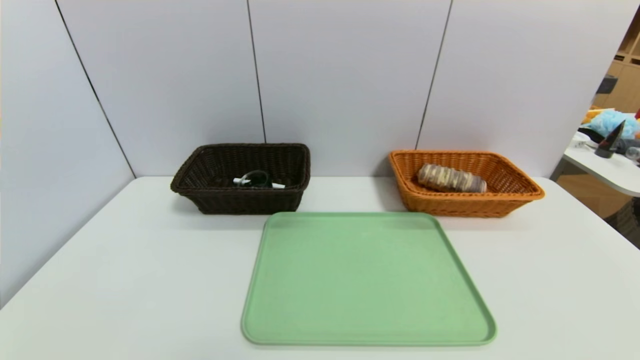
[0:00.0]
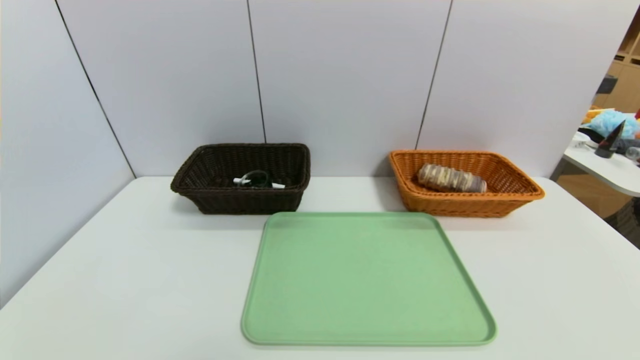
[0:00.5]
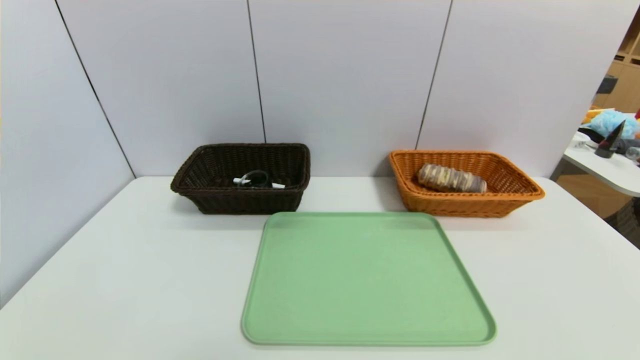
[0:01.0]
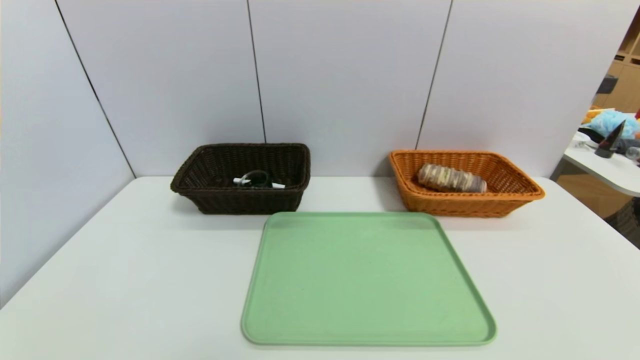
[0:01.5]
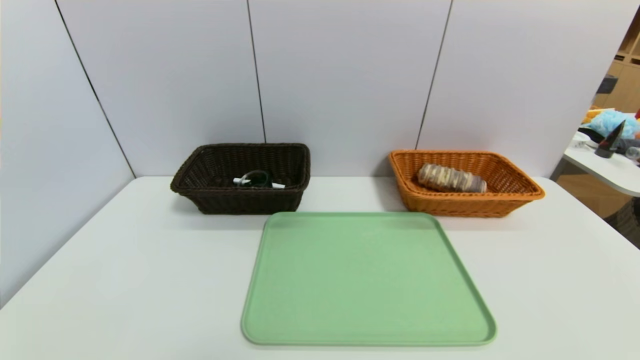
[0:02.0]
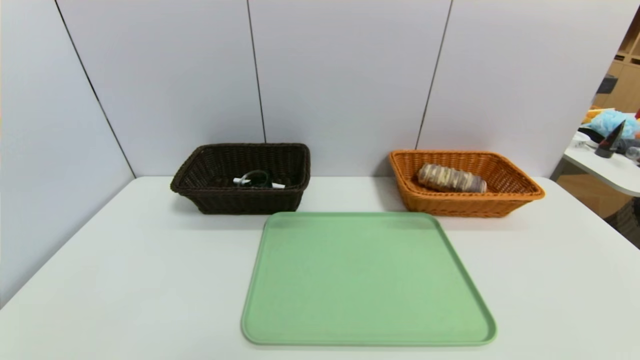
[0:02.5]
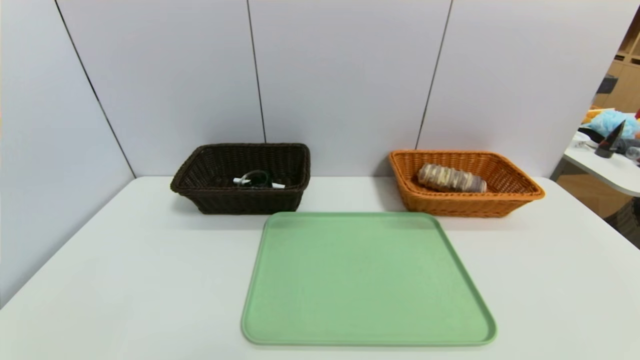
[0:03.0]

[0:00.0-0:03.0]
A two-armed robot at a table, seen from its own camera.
Task of the whole recording: place the food in the right basket with the right gripper, and place the non food items in the left basket with the left gripper.
0:01.5 to 0:03.0: The two grippers keep their place.

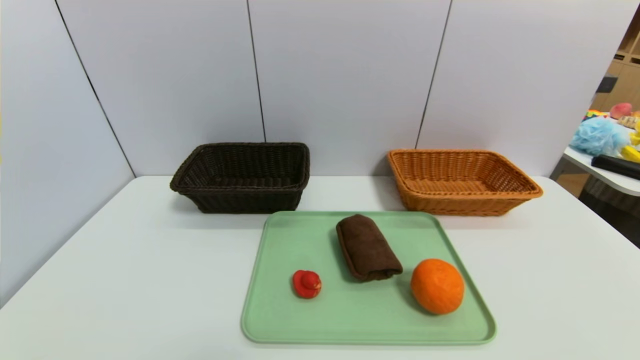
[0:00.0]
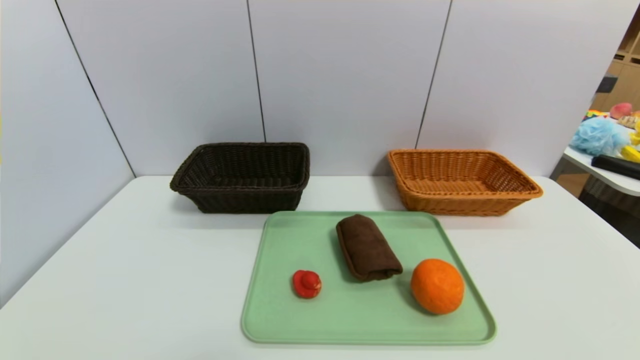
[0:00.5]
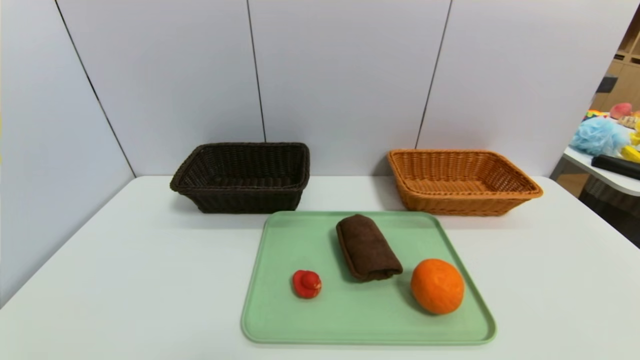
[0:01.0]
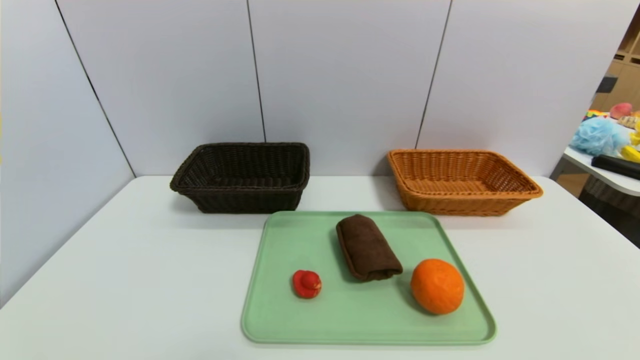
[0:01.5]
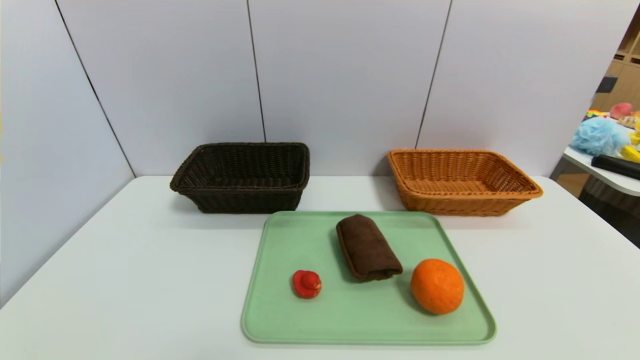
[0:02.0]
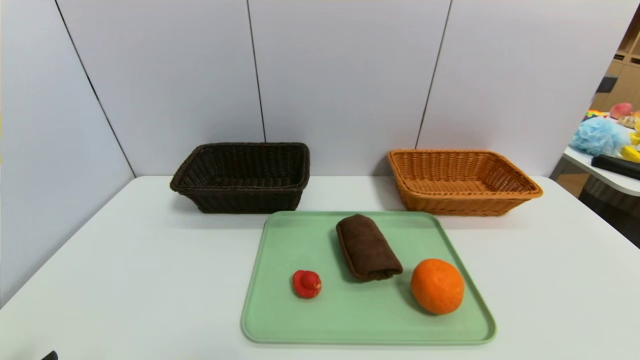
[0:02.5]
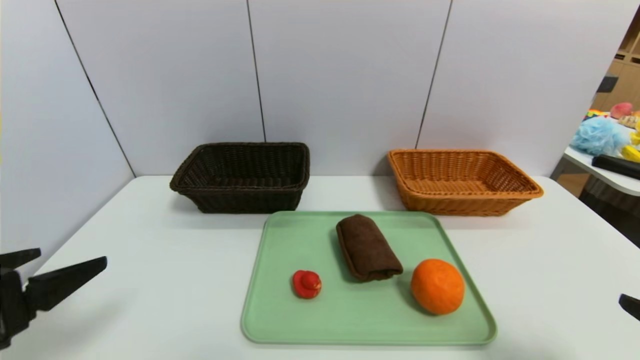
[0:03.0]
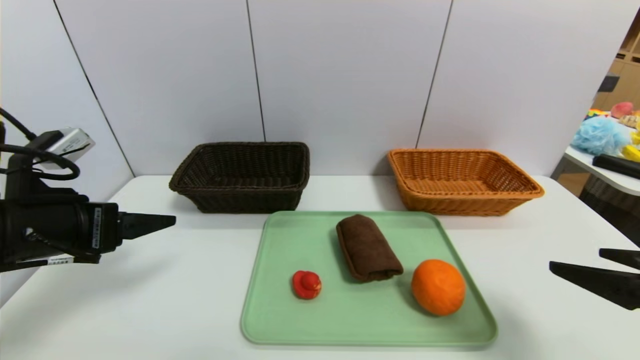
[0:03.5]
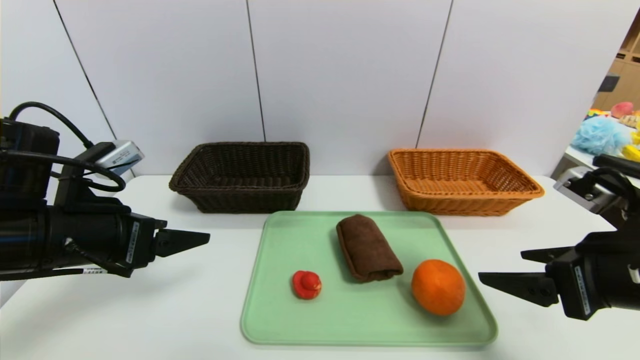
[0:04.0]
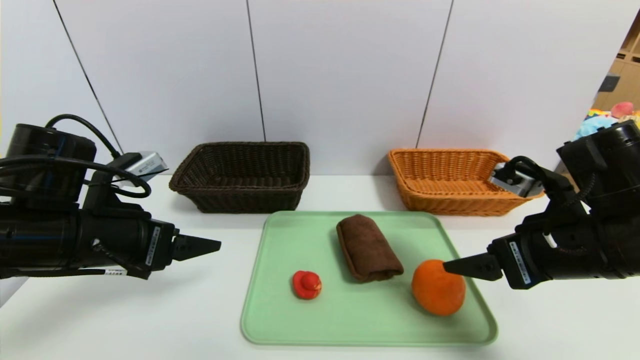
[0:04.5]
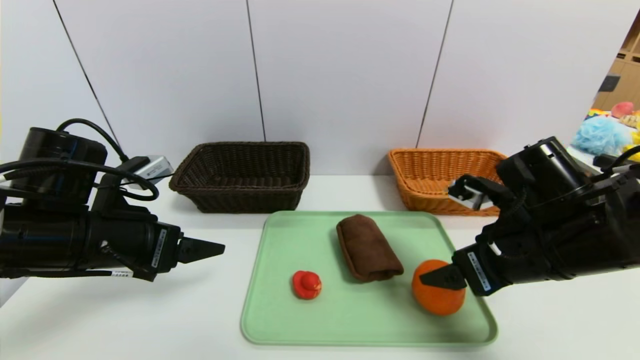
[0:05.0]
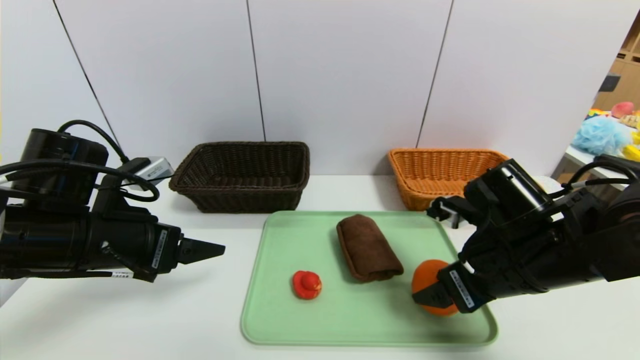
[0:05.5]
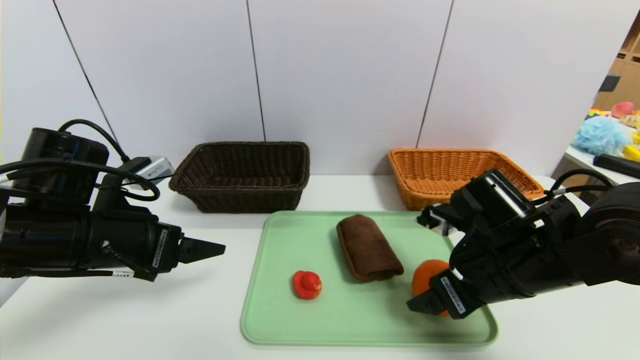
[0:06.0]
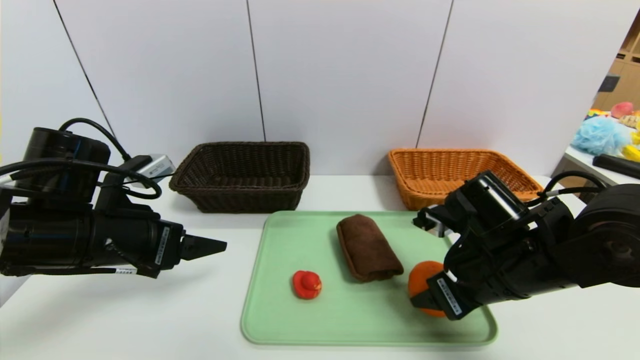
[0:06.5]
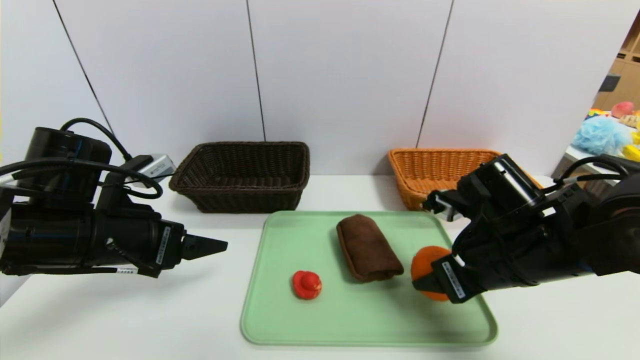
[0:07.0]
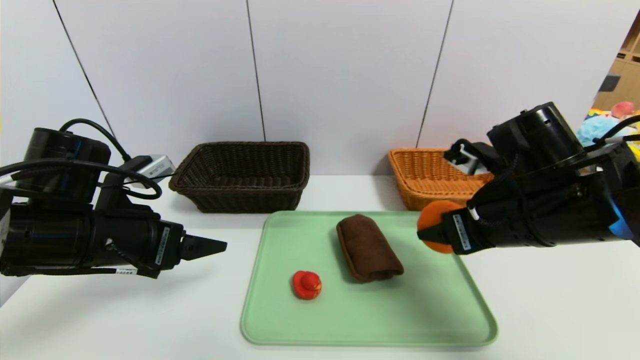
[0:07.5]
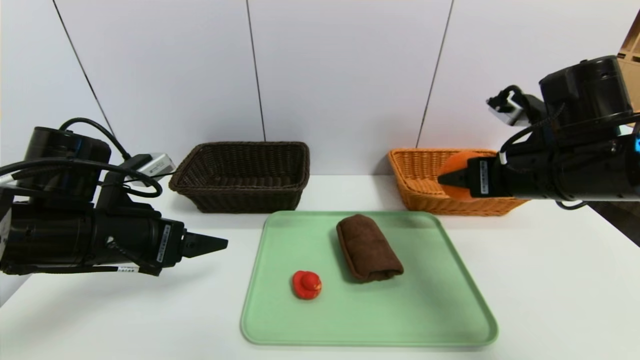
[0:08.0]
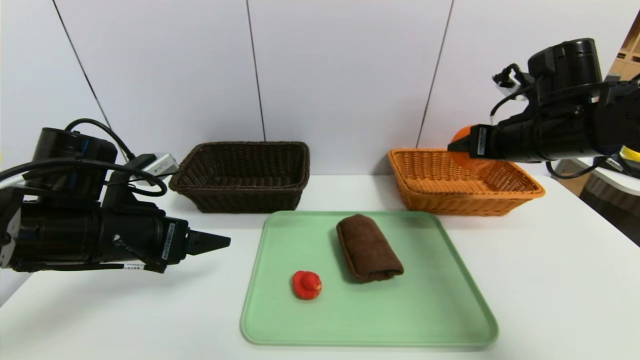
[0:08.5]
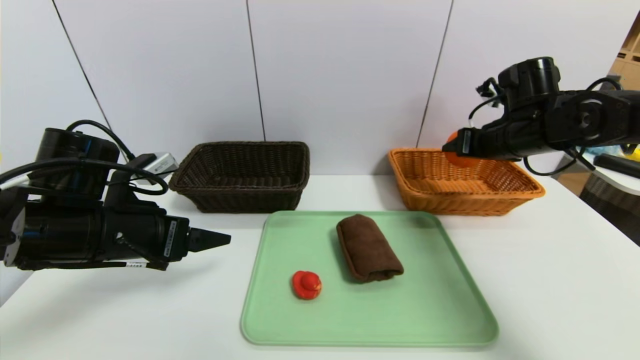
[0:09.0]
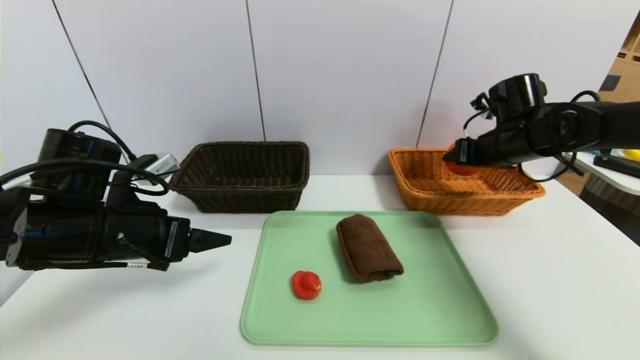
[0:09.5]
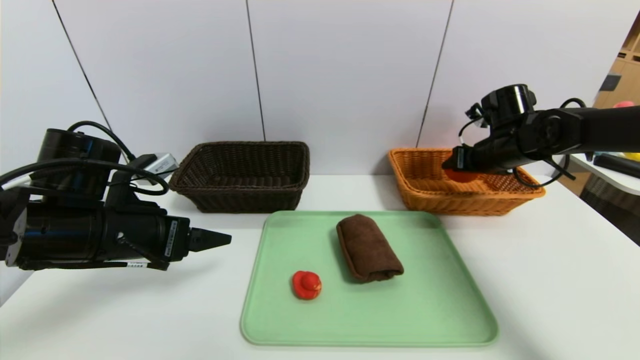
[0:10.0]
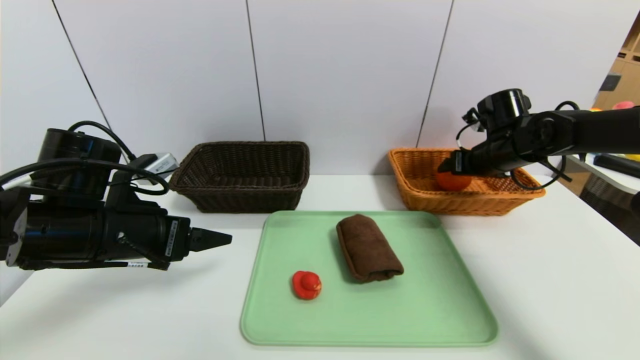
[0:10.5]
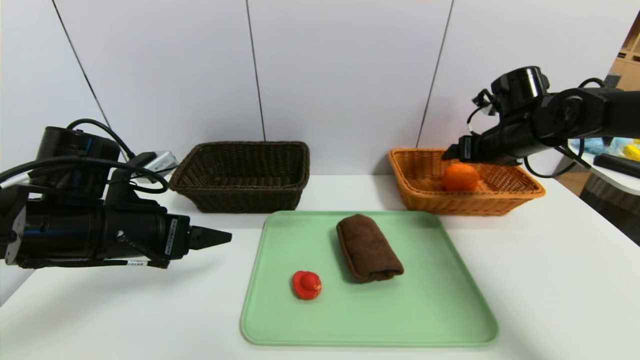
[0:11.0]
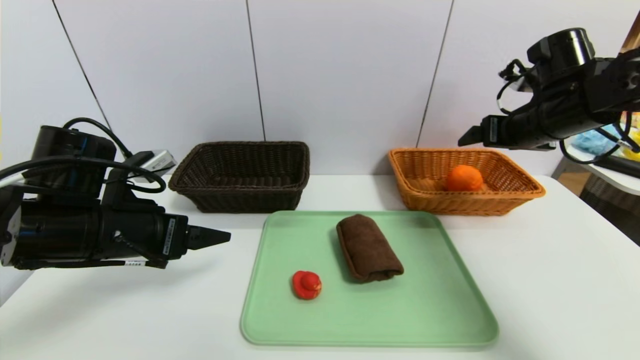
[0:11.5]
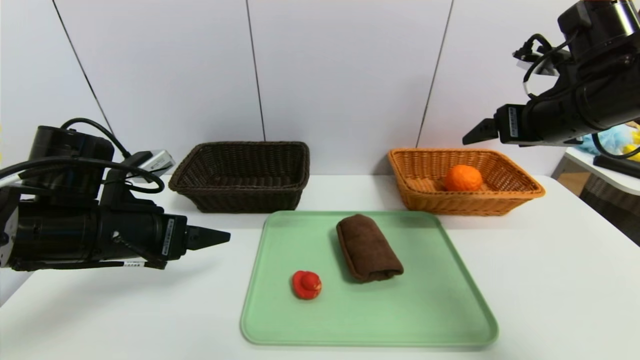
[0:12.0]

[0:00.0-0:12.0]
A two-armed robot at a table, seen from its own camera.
Task of the whole recording: place the food in the right basket with the right gripper, and place the non food items in the left basket with the left gripper.
Step, 0:00.0 to 0:11.0: Grasp the orange and put it in the right basket.
0:02.0 to 0:04.0: Both grippers move forward and upward, approximately 25 cm.
0:04.0 to 0:06.0: The right gripper shifts roughly 10 cm to the left, forward and downward.
0:06.0 to 0:08.0: The right gripper heads upward, covering some 10 cm, and closes.
0:08.0 to 0:10.0: The right gripper moves forward, approximately 15 cm.
0:10.0 to 0:12.0: The right gripper heads backward and upward, covering about 15 cm, and opens up.

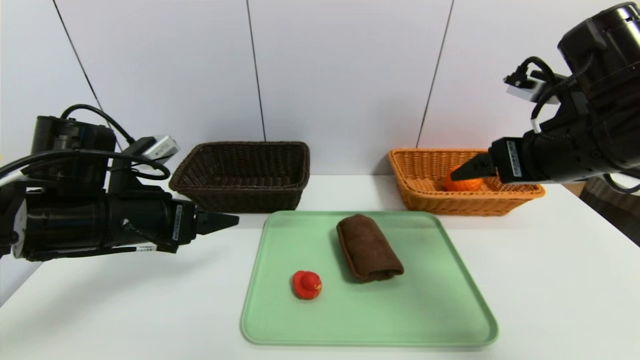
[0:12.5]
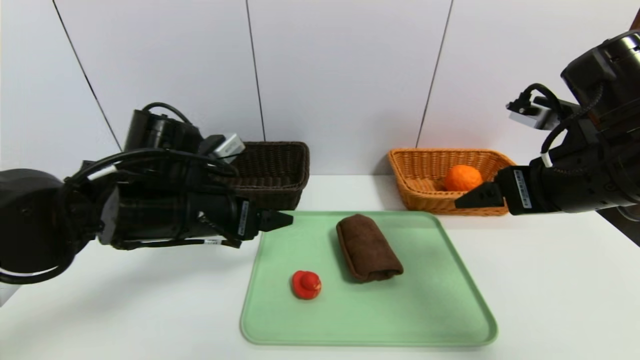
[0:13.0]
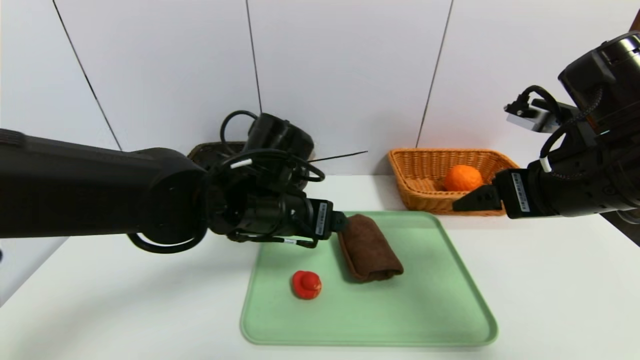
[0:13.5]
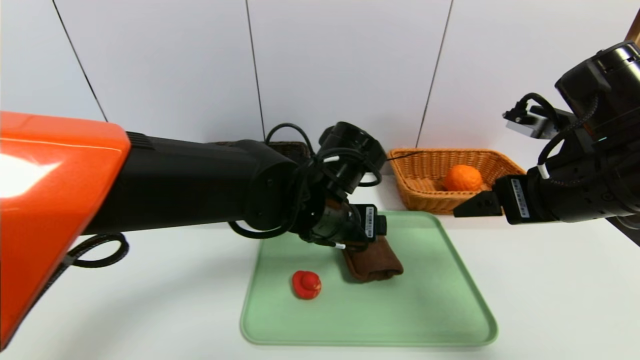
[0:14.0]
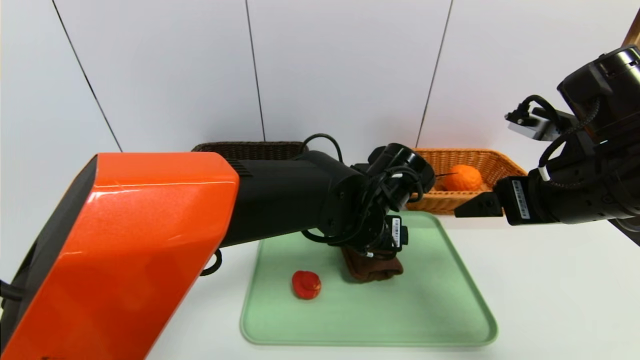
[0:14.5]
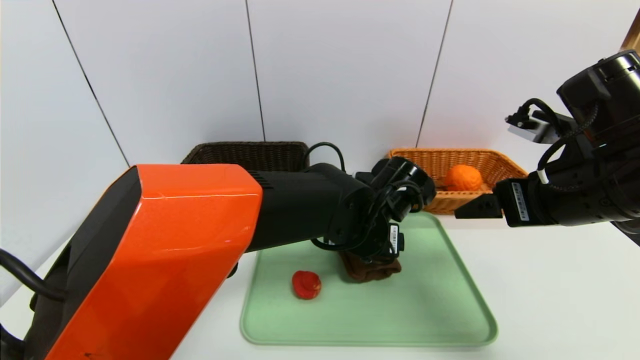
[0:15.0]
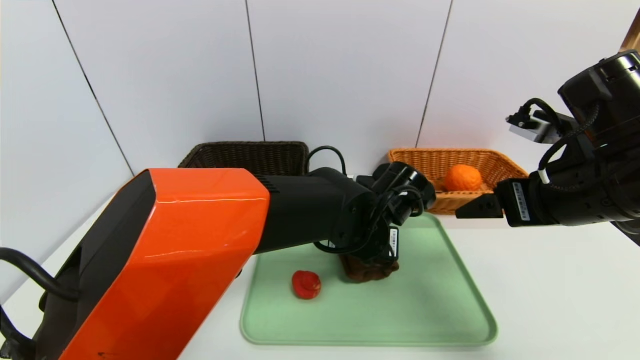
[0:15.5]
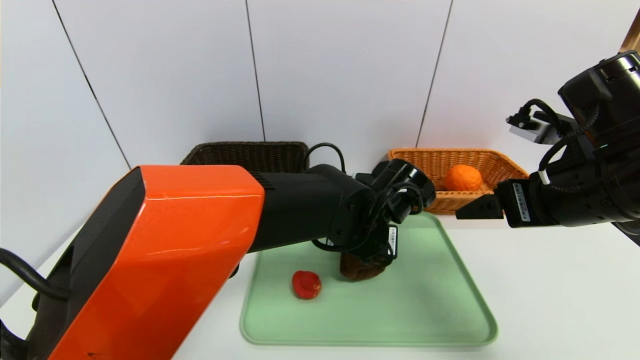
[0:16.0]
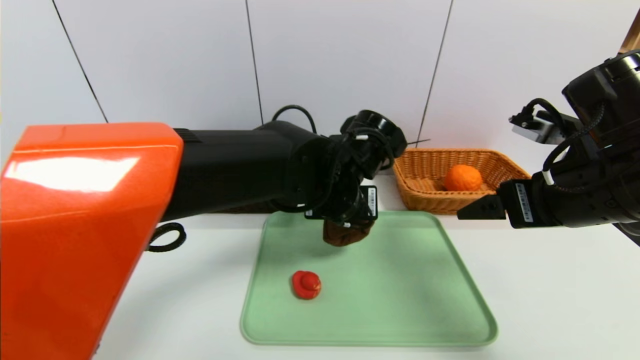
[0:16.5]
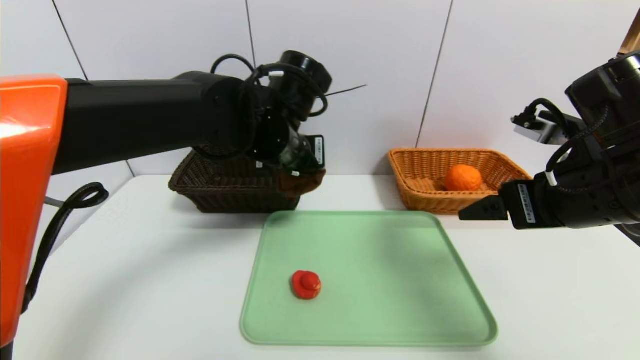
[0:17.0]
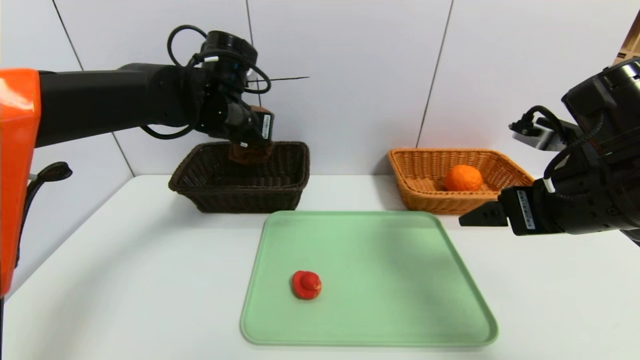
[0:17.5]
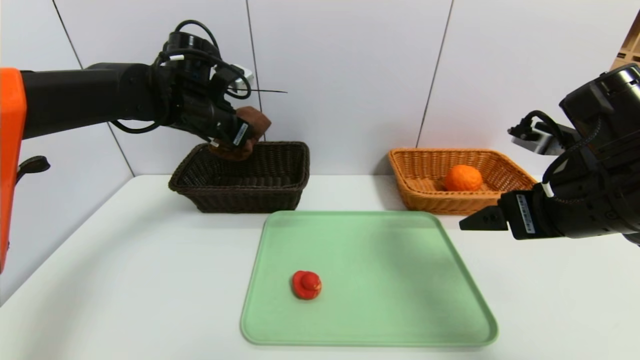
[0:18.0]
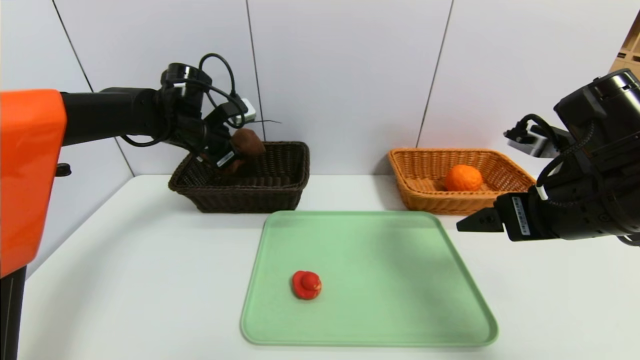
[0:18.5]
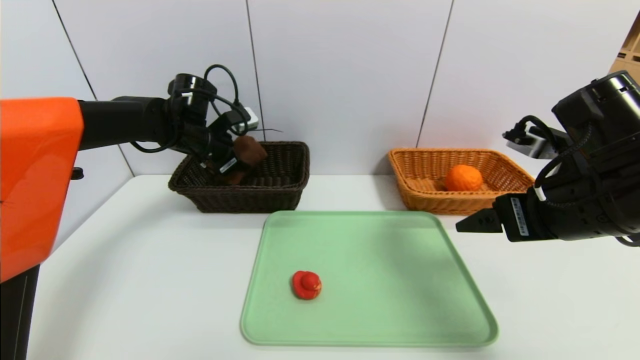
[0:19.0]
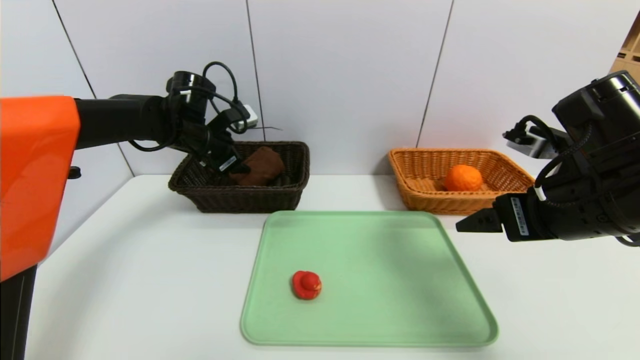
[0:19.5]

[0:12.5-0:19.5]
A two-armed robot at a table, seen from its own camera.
Task of the whole recording: place the food in the right basket with the right gripper, and place the non food items in the left basket with the left gripper.
0:12.5 to 0:14.5: The left gripper shifts some 30 cm to the right.
0:14.5 to 0:16.0: The left gripper closes.
0:16.0 to 0:17.5: The left gripper travels to the left, upward and forward by some 25 cm.
0:17.5 to 0:19.5: The left gripper travels to the left, forward and downward by roughly 10 cm, and opens up.
